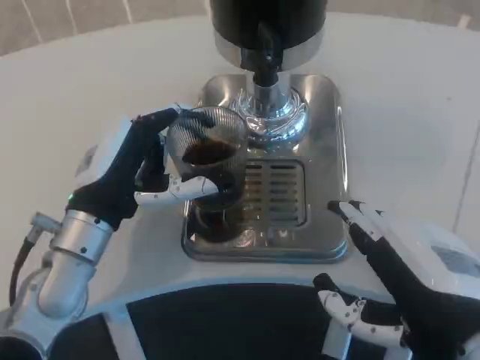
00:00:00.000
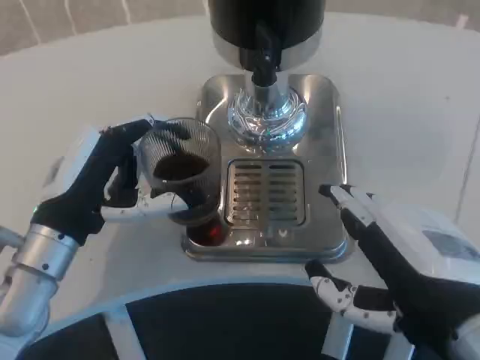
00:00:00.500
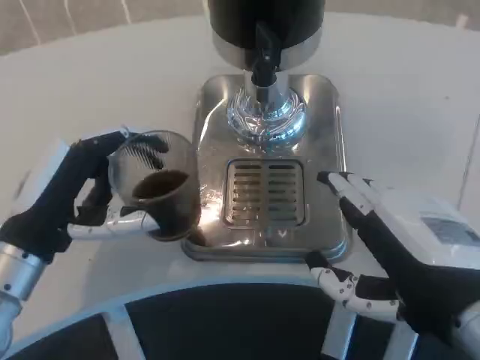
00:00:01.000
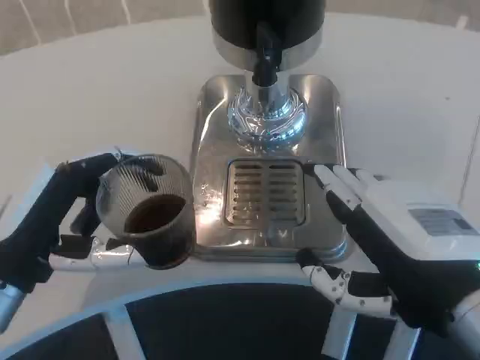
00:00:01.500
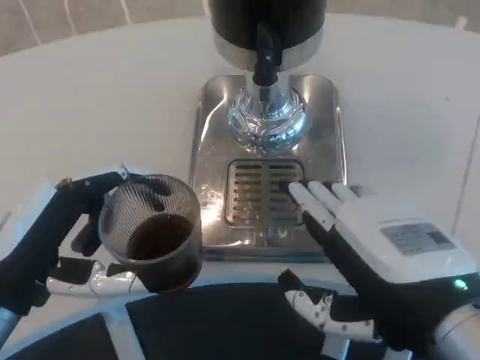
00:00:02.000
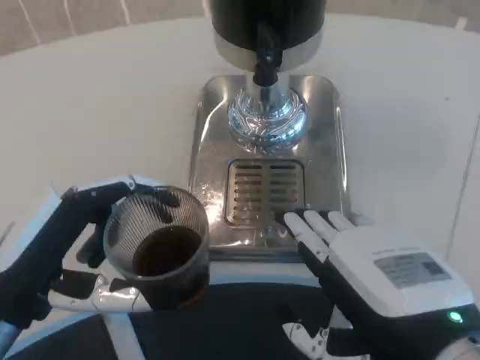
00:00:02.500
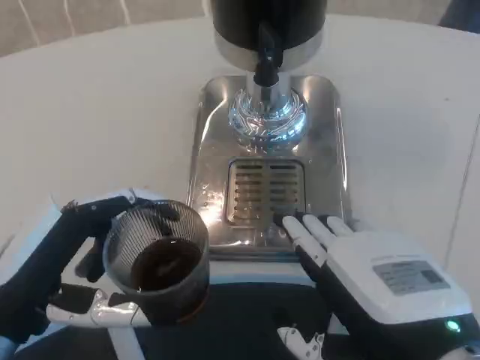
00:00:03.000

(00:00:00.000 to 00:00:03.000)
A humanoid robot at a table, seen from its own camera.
Task of the whole recording: Grasp the cup under the faucet to collect the drink, then remove the cup.
00:00:00.000 - 00:00:01.500: The left hand goes approximately 10 cm backward and to the left.

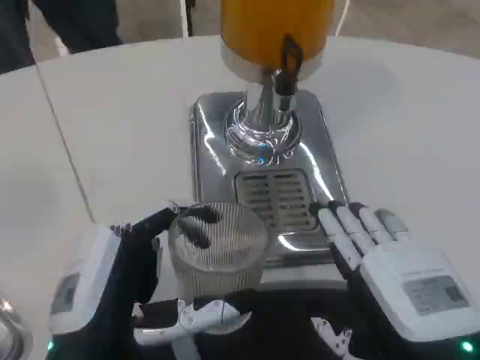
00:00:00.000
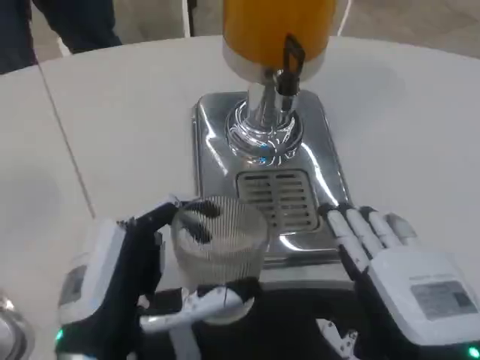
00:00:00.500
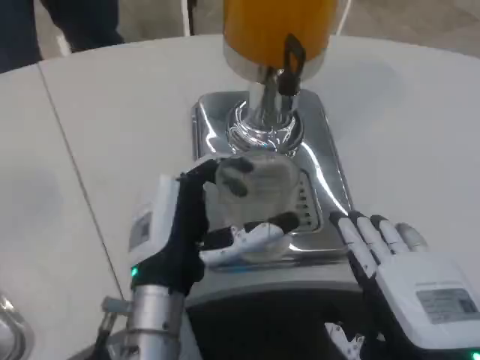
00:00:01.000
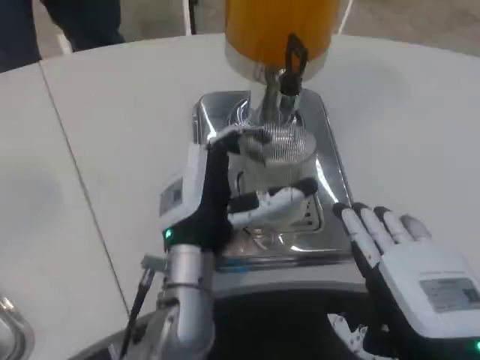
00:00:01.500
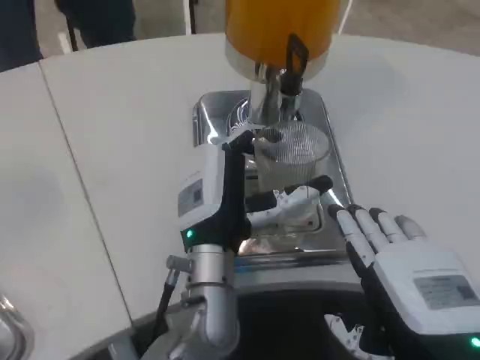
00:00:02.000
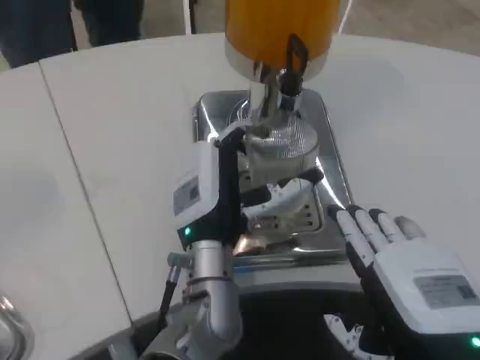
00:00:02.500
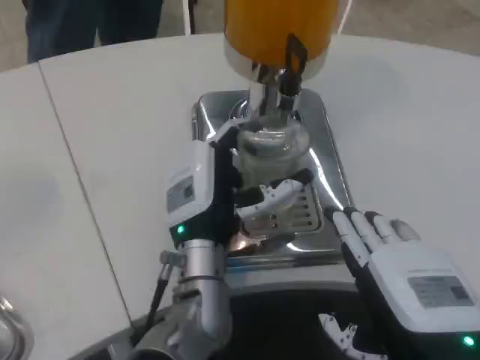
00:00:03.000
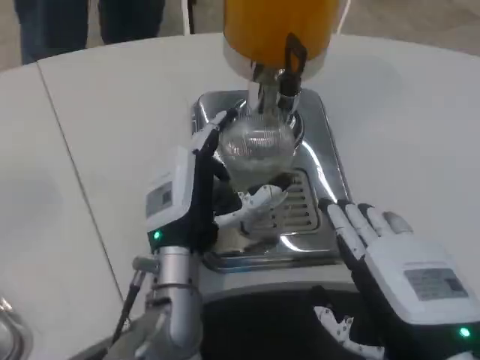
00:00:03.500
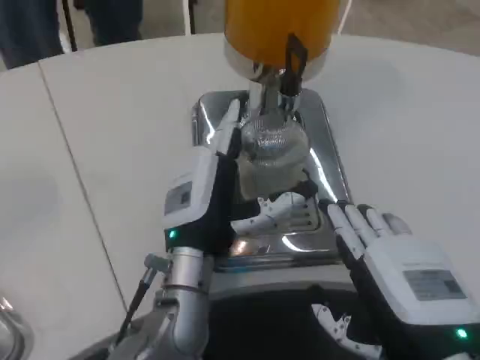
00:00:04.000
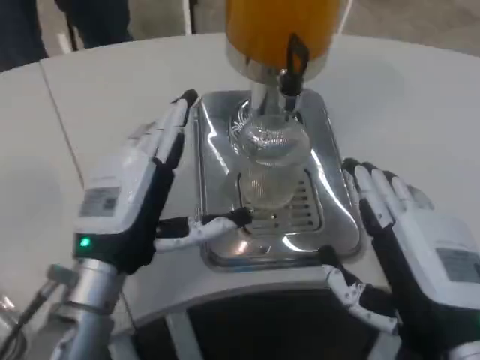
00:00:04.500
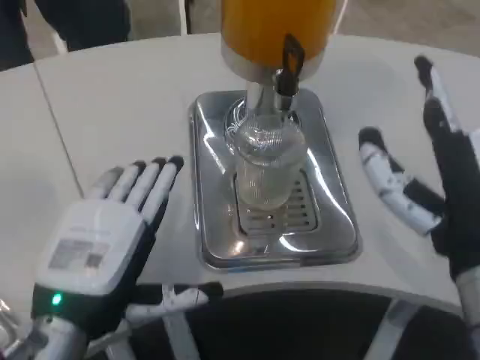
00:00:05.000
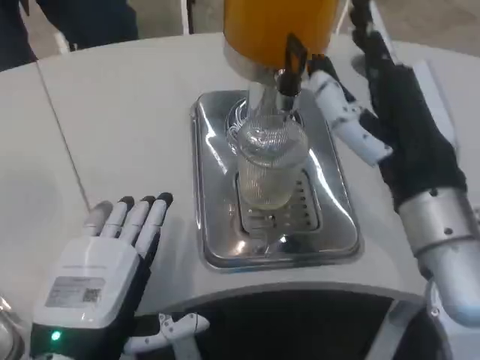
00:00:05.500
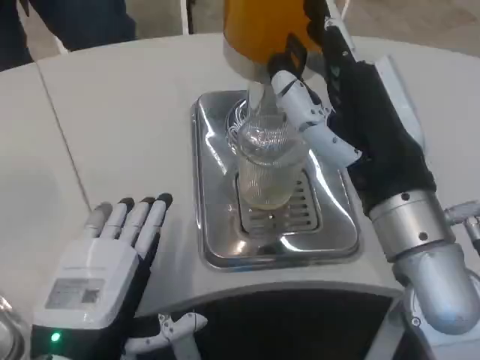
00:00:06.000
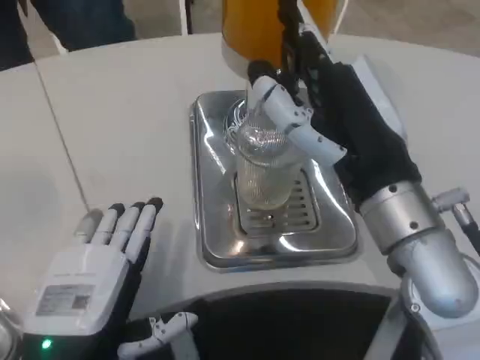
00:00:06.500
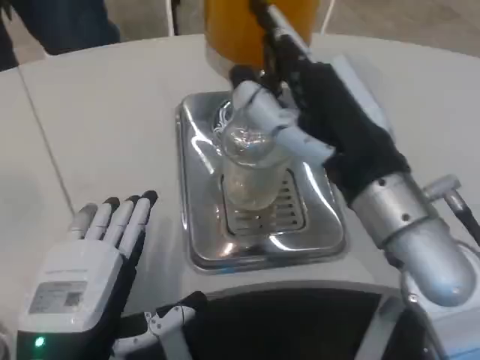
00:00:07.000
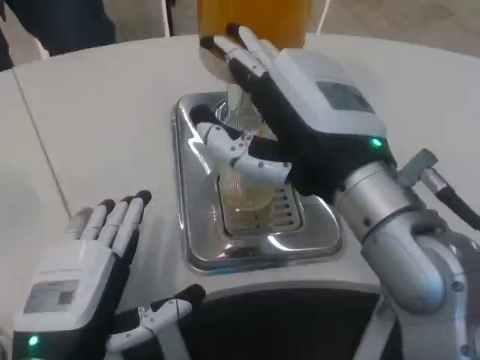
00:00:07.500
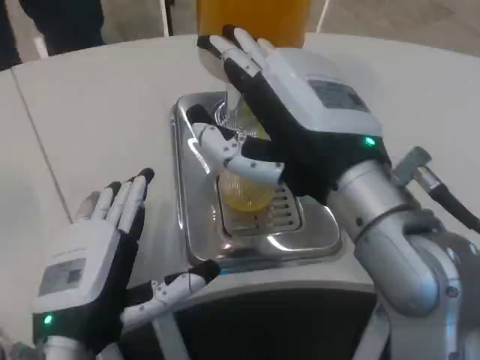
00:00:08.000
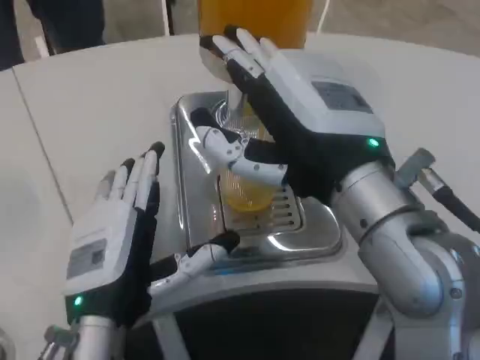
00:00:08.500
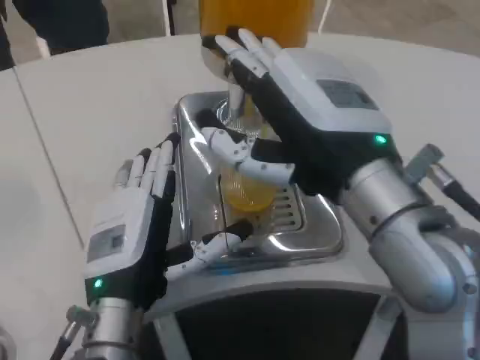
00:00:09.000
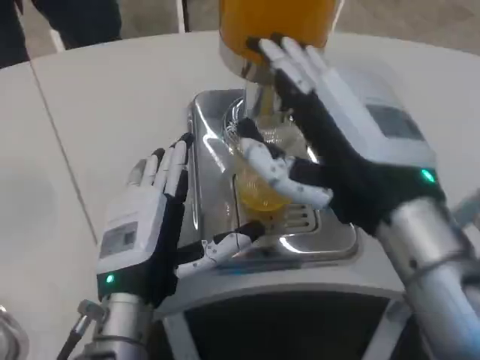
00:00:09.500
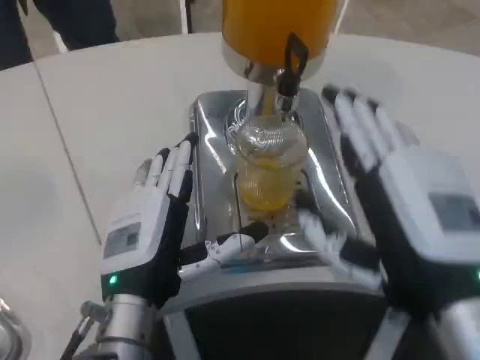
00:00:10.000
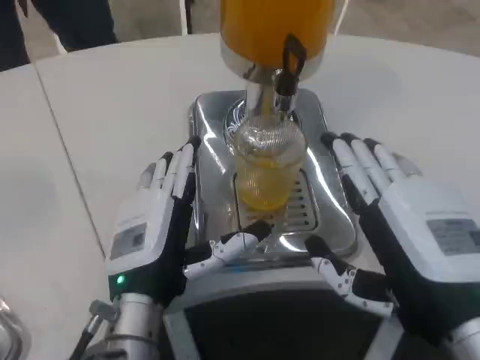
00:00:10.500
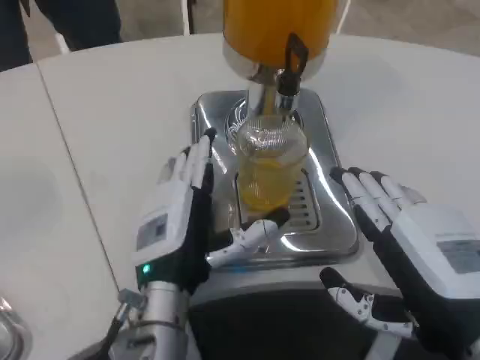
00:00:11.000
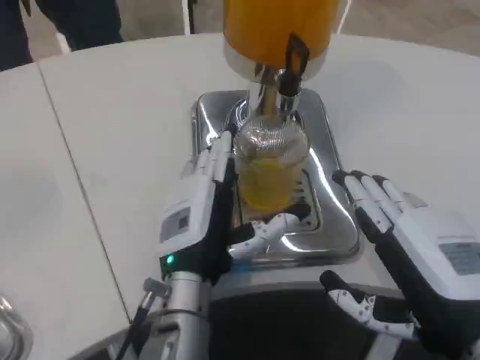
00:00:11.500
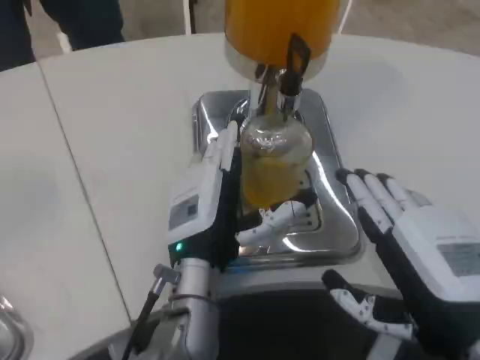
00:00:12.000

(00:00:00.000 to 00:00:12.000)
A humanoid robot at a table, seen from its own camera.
Task of the whole recording: Grasp the cup under the faucet to collect the drink, then remove the cup.
00:00:00.000 - 00:00:02.000: The left hand moves forward and to the right, about 20 cm.
00:00:02.000 - 00:00:04.000: The hands stay close to where they were, moving slightly.
00:00:04.000 - 00:00:06.000: The left hand is displaced backward and to the left by roughly 15 cm; the right hand travels upward and forward by some 10 cm.
00:00:06.000 - 00:00:08.000: The right hand moves about 5 cm.
00:00:08.000 - 00:00:10.000: The right hand shifts approximately 10 cm downward, backward and to the right. The left hand goes roughly 5 cm forward.
00:00:10.000 - 00:00:12.000: The left hand travels to the right and forward by about 10 cm.

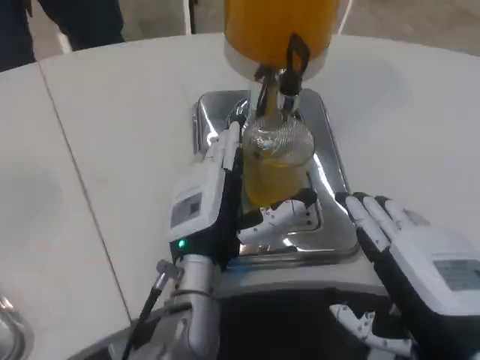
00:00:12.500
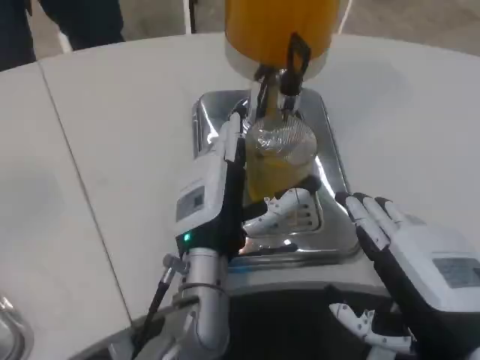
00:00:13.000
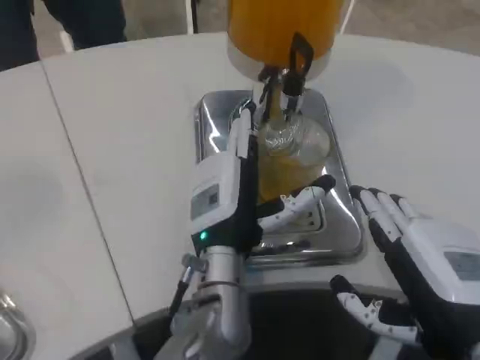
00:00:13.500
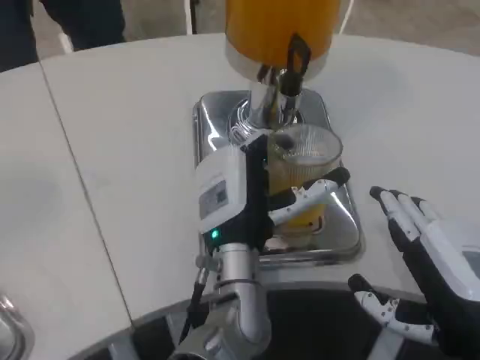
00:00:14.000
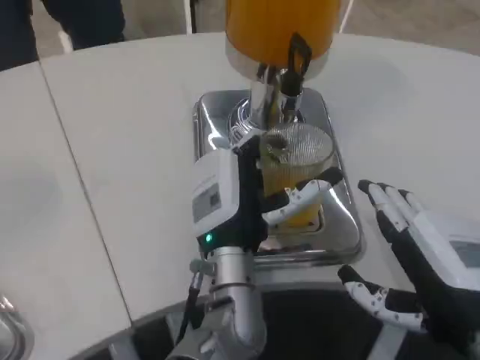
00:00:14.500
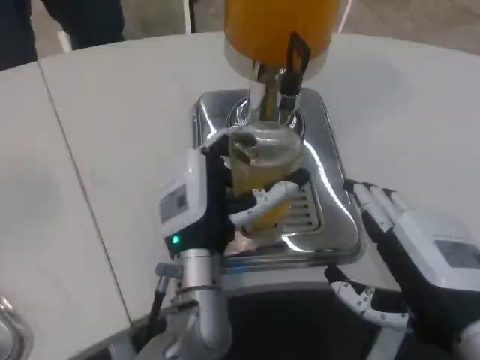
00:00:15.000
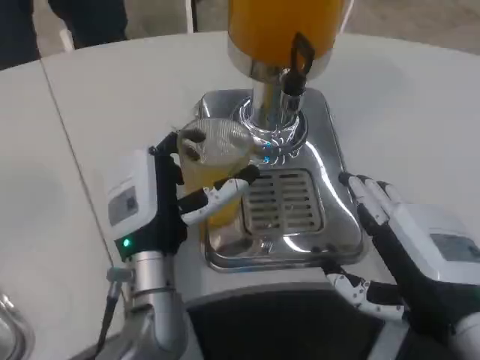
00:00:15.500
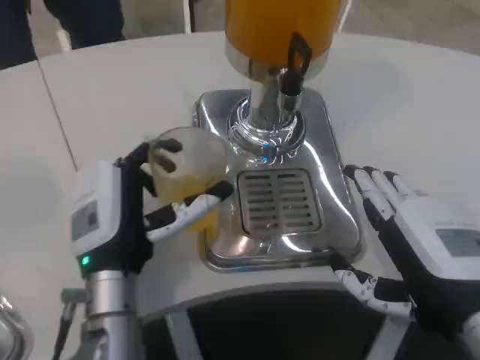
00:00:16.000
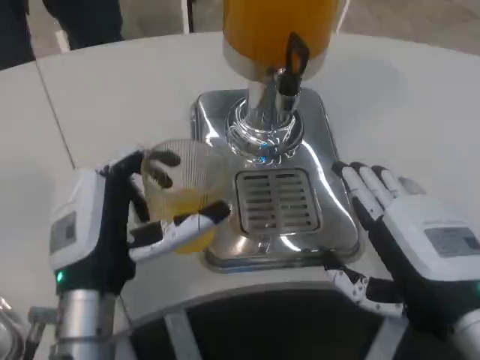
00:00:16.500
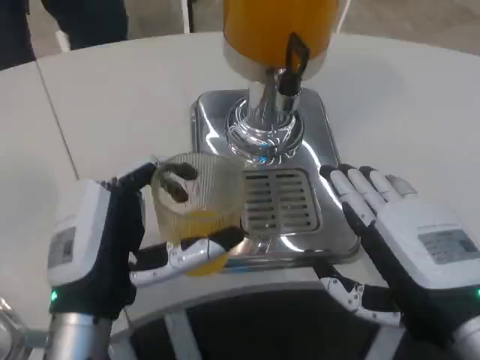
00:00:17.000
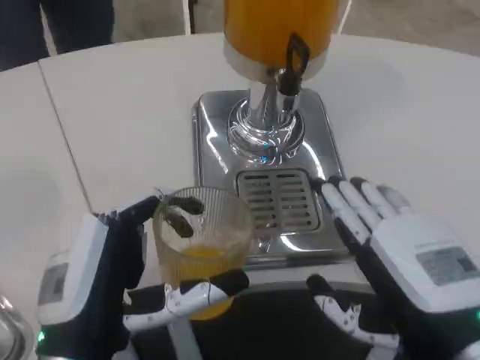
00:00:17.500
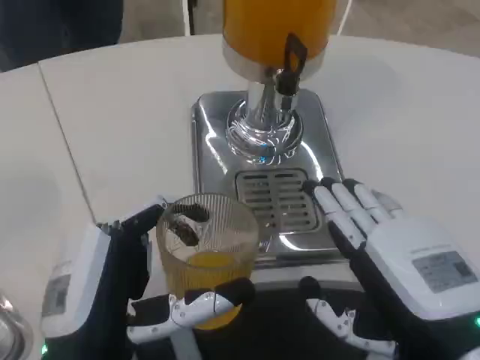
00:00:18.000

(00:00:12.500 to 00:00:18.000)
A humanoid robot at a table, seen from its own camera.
Task of the whole recording: Grasp the cup under the faucet to collect the drink, then remove the cup.
00:00:14.500 - 00:00:16.000: The left hand heads to the left, covering about 10 cm.
00:00:16.000 - 00:00:18.000: The left hand heads backward, covering about 10 cm.

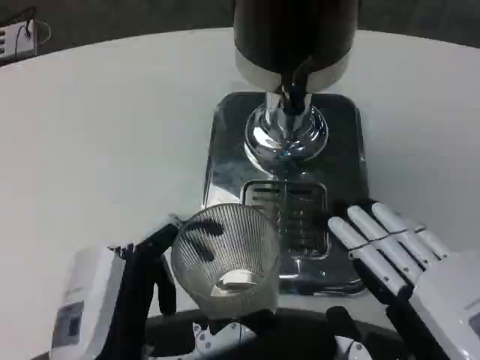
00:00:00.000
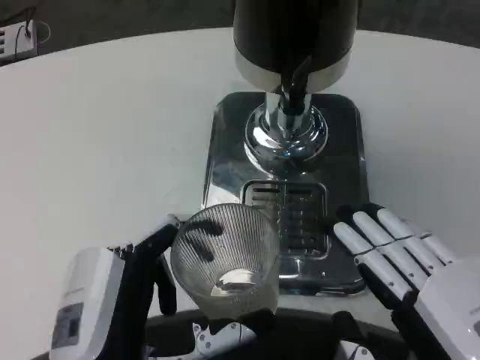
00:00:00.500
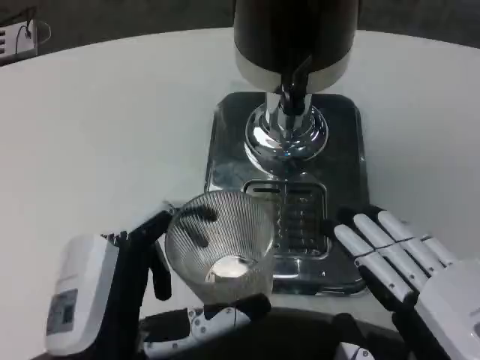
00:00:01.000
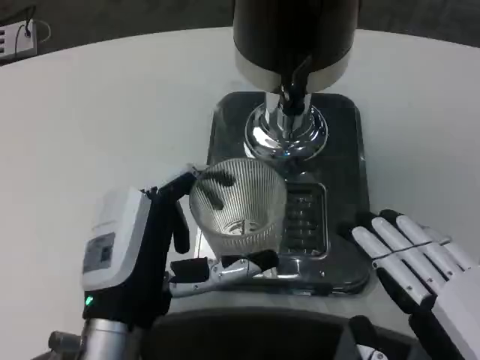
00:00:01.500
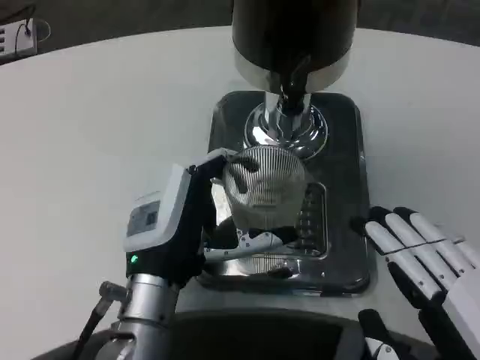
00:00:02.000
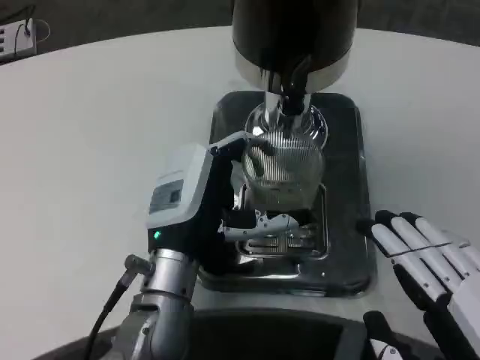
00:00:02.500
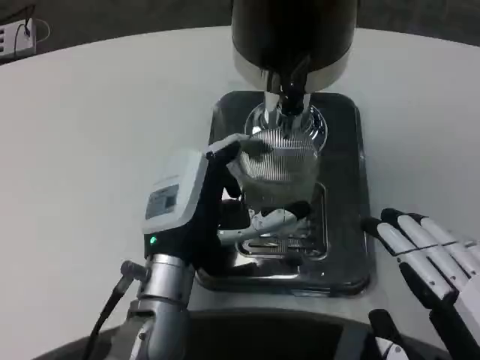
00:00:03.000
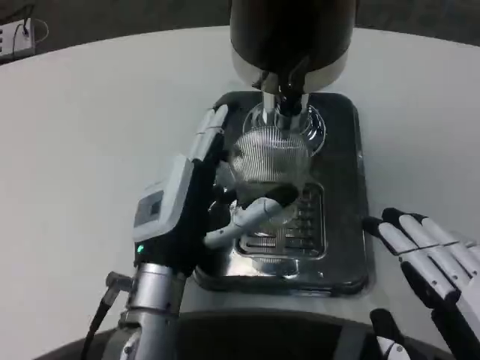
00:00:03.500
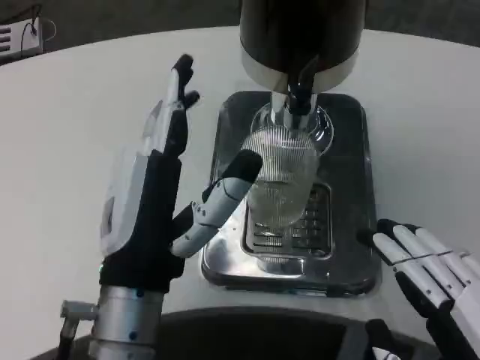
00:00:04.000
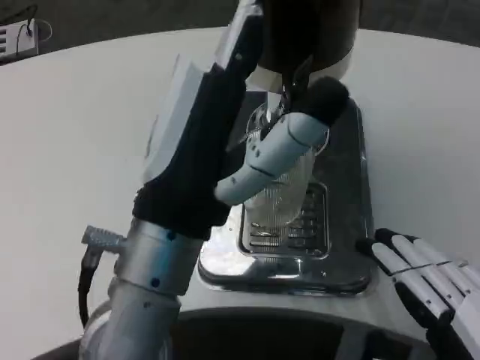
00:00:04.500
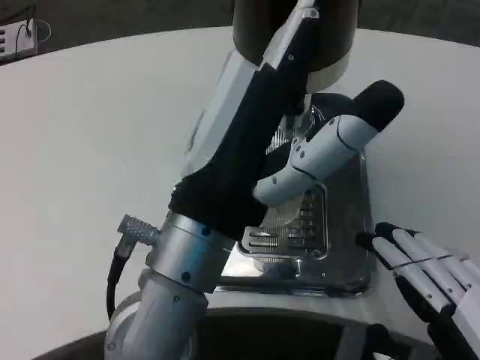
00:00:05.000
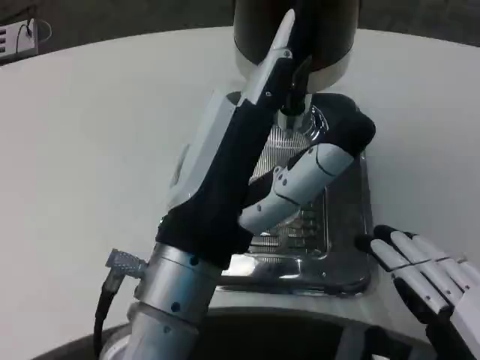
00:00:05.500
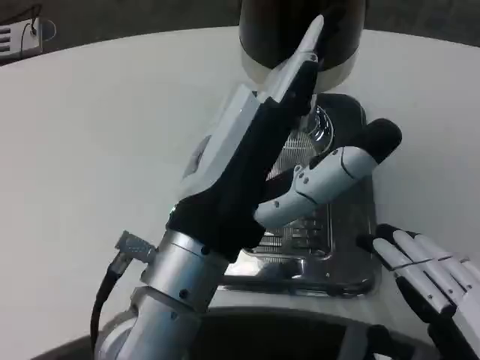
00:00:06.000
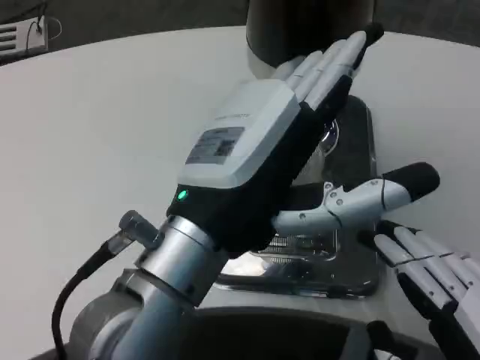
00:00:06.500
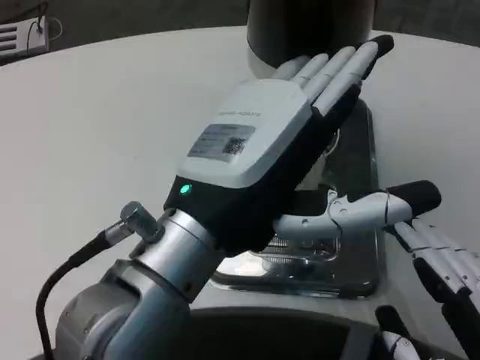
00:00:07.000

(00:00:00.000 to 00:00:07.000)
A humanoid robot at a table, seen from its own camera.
Task of the whole recording: Grasp the cup under the faucet to collect the drink, then remove the cup.
00:00:00.000 - 00:00:02.000: The left hand shifts roughly 10 cm forward.
00:00:02.000 - 00:00:03.500: The hands stay close to where they were, moving slightly.
00:00:03.500 - 00:00:05.000: The left hand heads upward and backward, covering about 10 cm.
